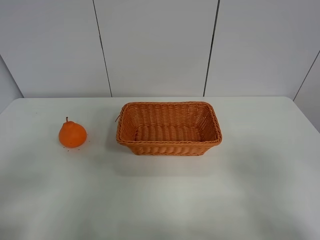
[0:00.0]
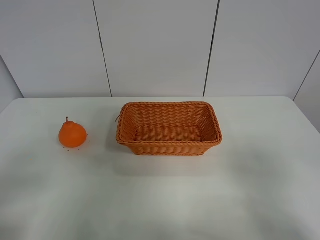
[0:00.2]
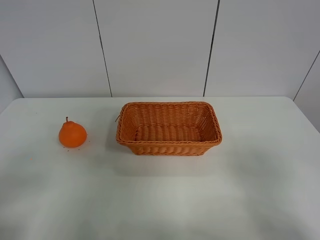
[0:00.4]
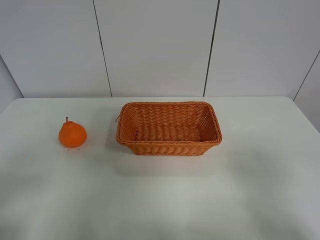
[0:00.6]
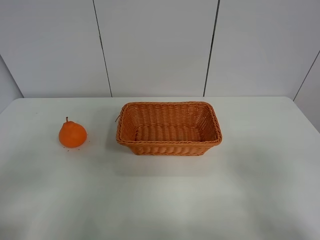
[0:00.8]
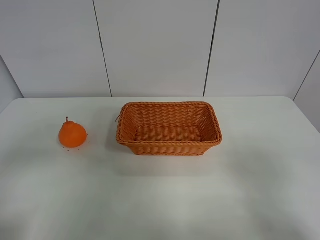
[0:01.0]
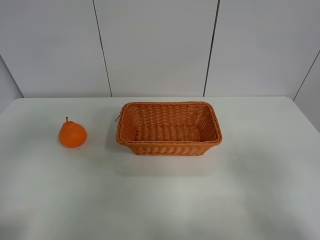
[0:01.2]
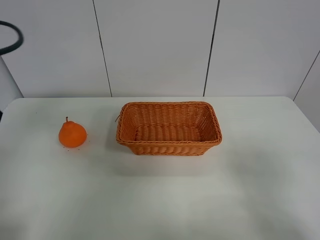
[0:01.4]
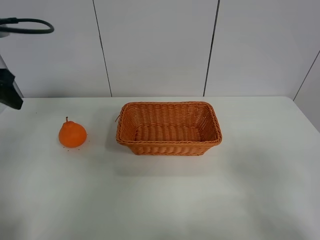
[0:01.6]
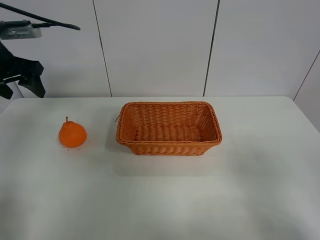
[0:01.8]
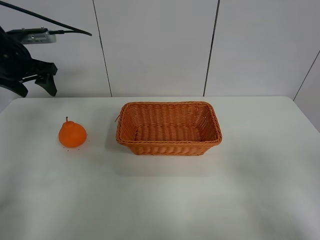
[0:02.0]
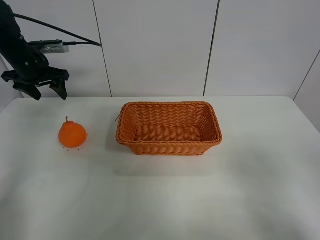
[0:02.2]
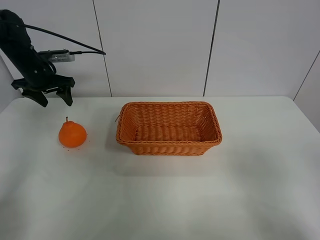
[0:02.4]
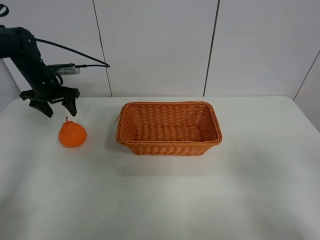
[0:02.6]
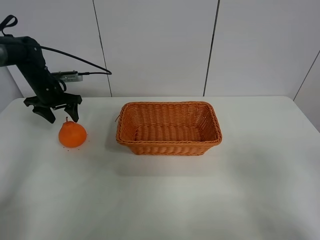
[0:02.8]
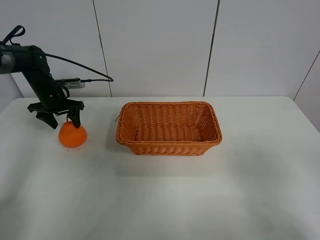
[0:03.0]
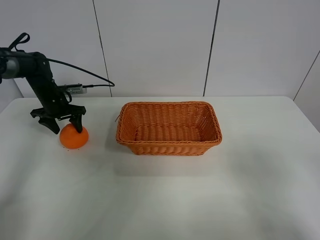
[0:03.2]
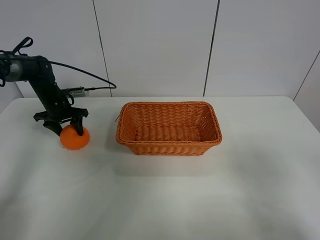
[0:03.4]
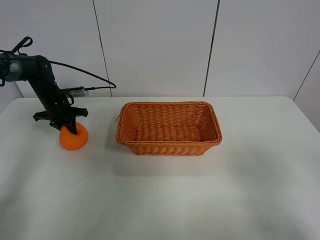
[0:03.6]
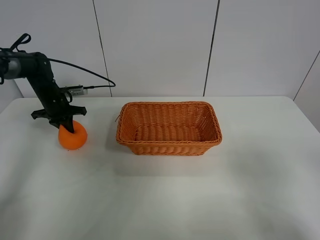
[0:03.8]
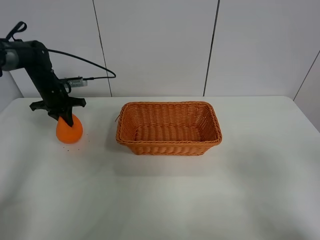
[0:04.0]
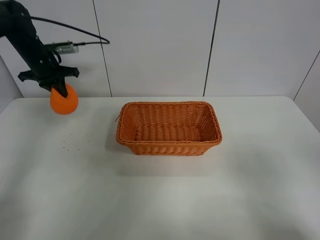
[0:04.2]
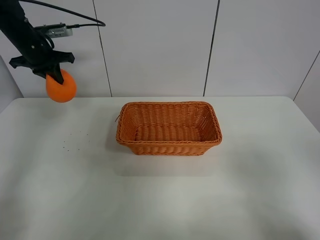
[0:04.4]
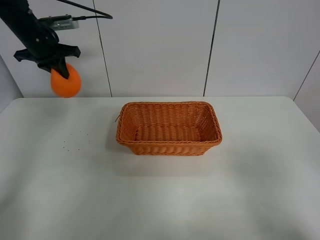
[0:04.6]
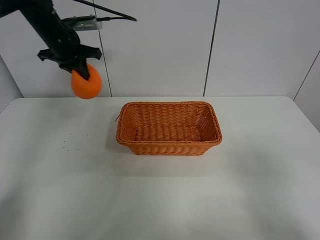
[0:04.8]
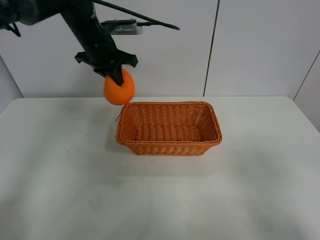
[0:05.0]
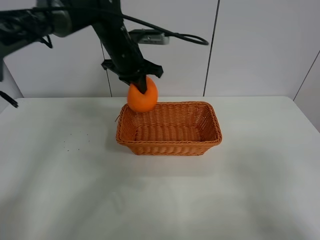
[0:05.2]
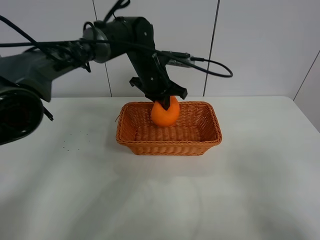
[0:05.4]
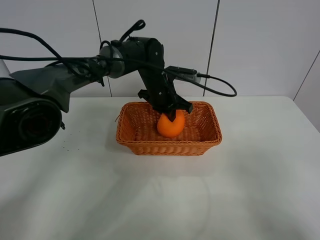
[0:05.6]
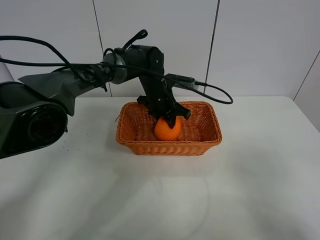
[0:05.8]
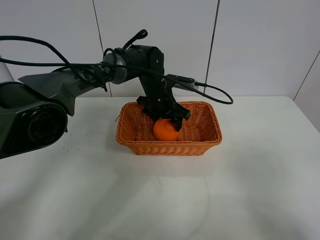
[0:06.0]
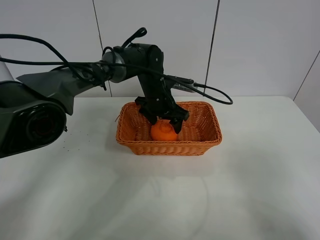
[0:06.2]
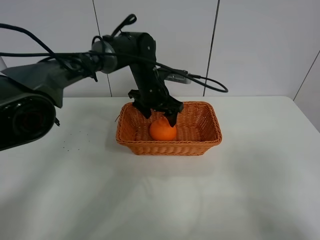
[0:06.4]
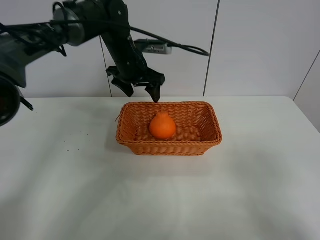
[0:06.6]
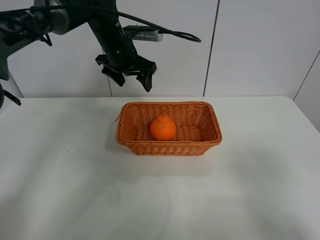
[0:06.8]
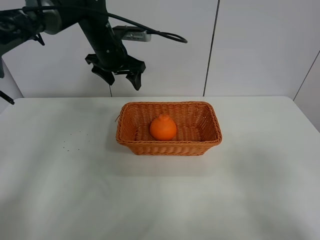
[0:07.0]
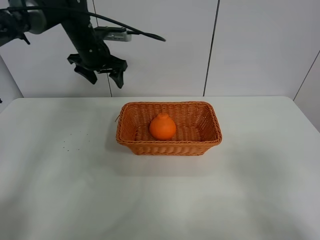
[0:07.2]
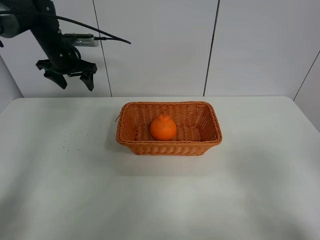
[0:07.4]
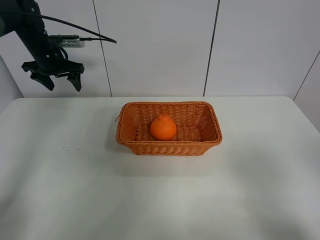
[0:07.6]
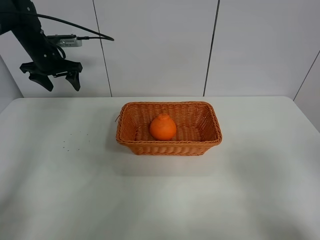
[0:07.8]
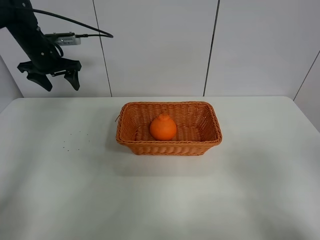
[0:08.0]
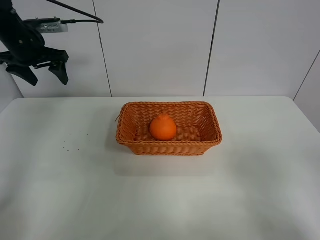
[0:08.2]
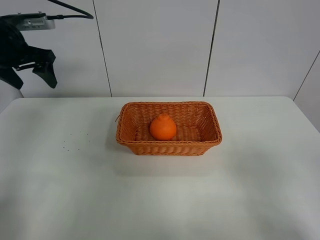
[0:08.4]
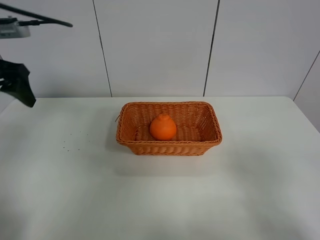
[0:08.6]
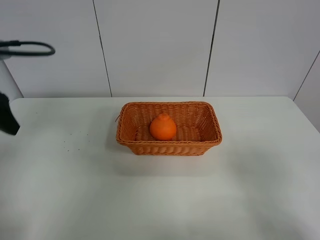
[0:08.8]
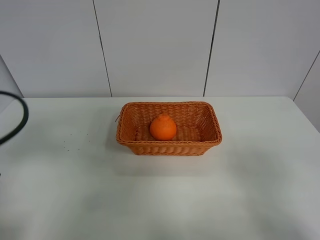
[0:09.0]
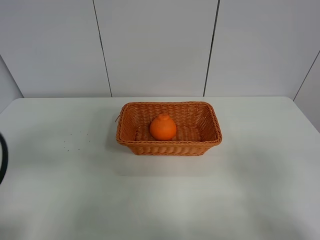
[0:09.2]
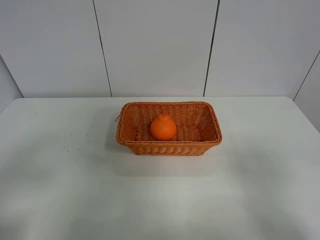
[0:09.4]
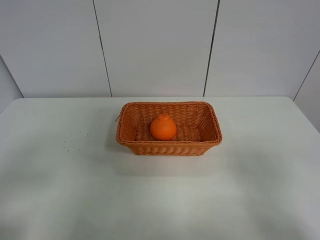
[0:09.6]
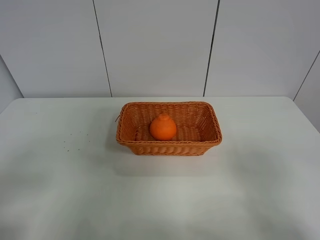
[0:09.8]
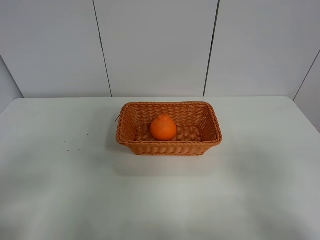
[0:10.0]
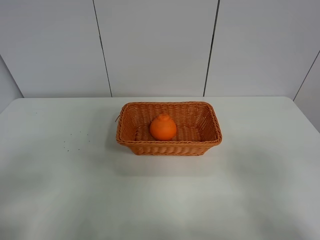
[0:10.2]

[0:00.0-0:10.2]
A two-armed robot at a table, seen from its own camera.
Task of the whole recording: left gripper grabs oranges and puts them in the basket.
Step, 0:00.0 to 0:03.6: Grasp the orange with left gripper.
Step, 0:03.8 to 0:07.2: Place the orange in the basket with left gripper.
0:00.0 to 0:01.4: The left gripper shifts roughly 20 cm forward.
0:01.4 to 0:03.0: The left gripper is displaced forward and downward by roughly 35 cm.
0:03.0 to 0:04.4: The left gripper travels upward by approximately 15 cm, and closes its fingers.
0:04.4 to 0:05.8: The left gripper shifts roughly 30 cm to the right, and opens its fingers.
0:05.8 to 0:07.2: The left gripper goes roughly 20 cm to the left and upward, and opens up.
0:07.2 to 0:08.8: The left gripper travels backward and to the left by about 30 cm.
0:08.8 to 0:10.2: The left gripper heads backward, covering about 20 cm.
